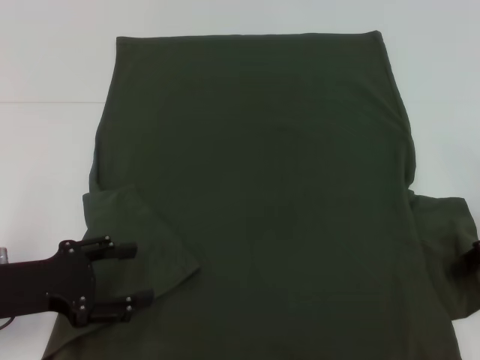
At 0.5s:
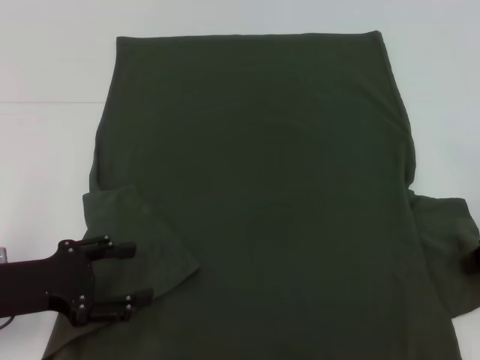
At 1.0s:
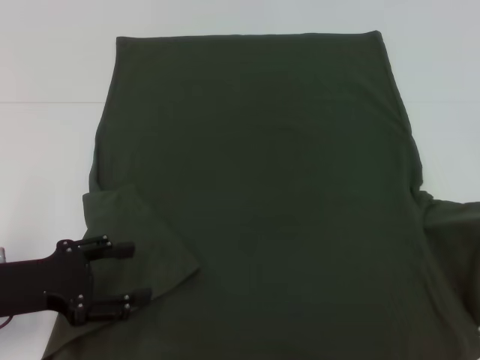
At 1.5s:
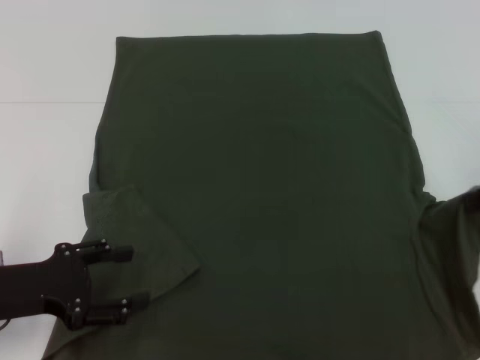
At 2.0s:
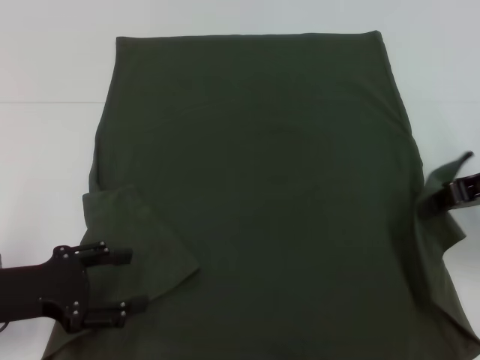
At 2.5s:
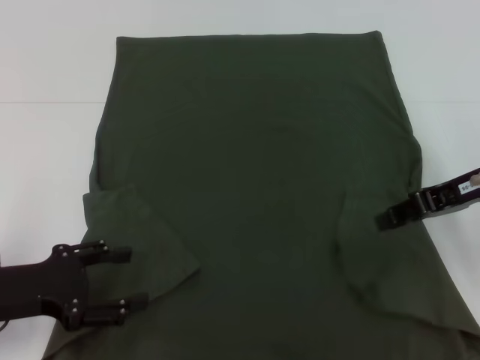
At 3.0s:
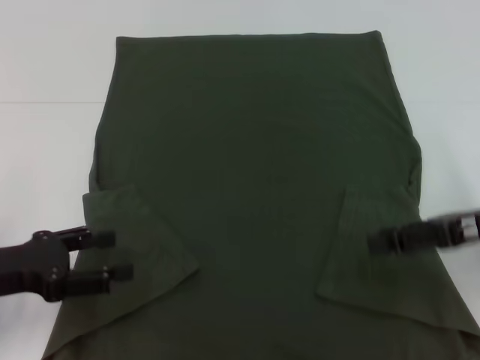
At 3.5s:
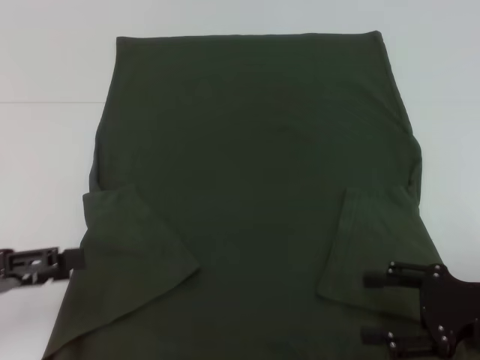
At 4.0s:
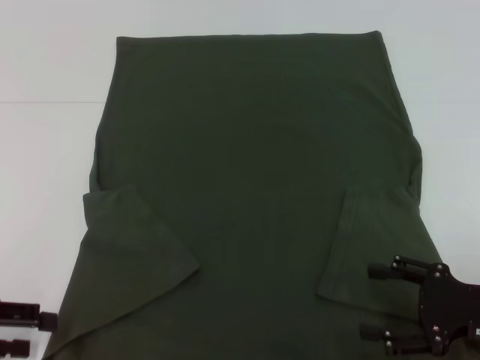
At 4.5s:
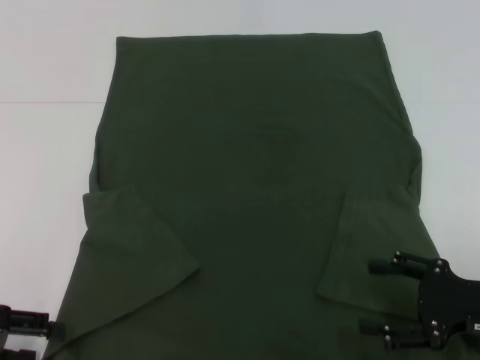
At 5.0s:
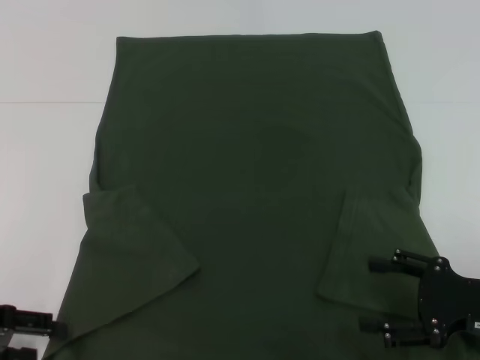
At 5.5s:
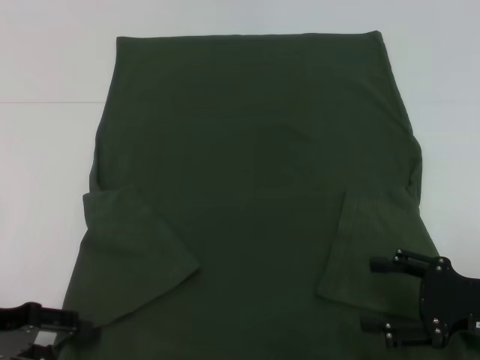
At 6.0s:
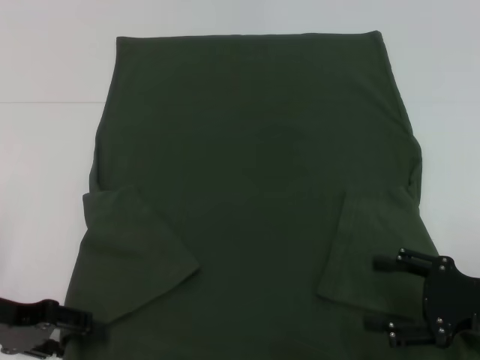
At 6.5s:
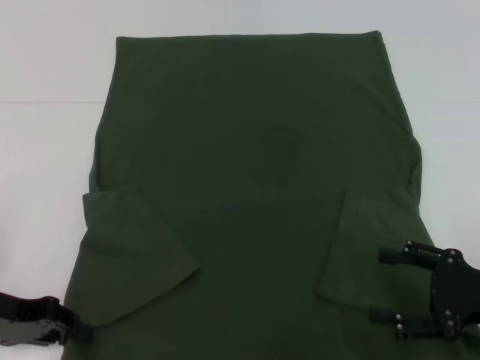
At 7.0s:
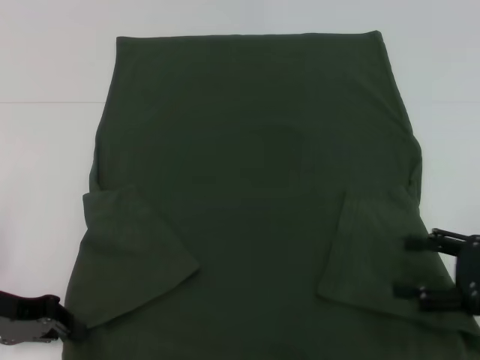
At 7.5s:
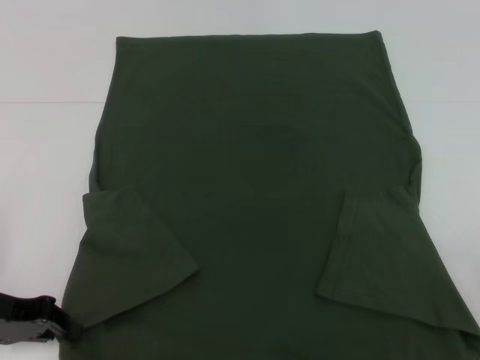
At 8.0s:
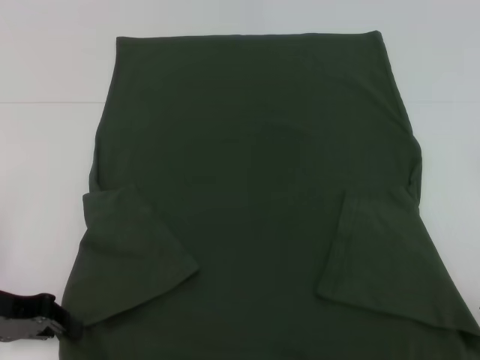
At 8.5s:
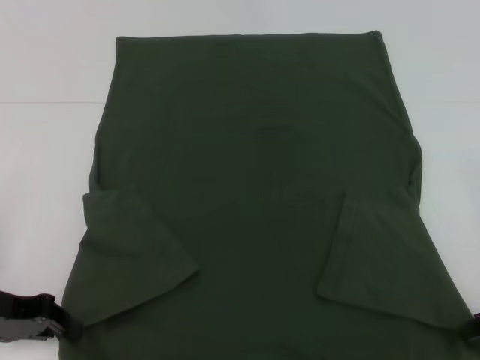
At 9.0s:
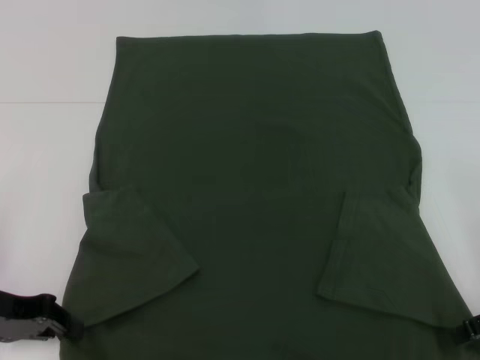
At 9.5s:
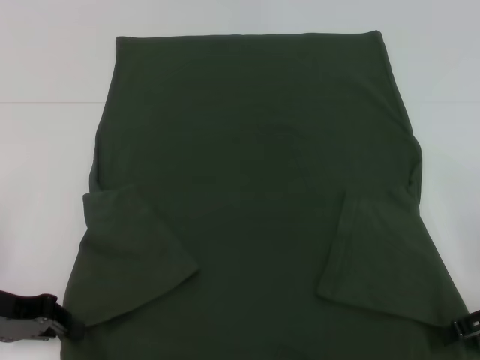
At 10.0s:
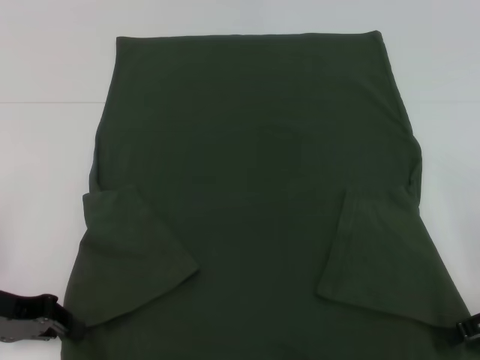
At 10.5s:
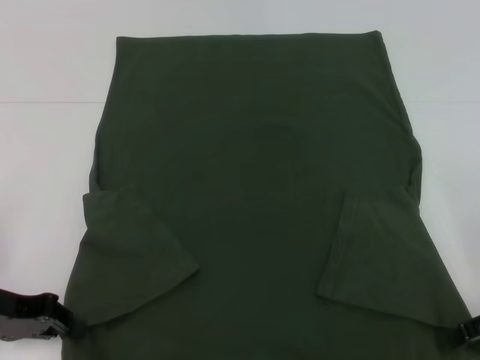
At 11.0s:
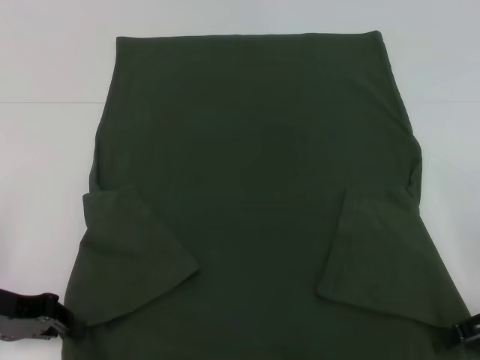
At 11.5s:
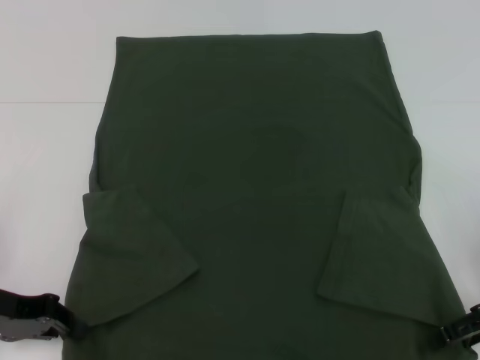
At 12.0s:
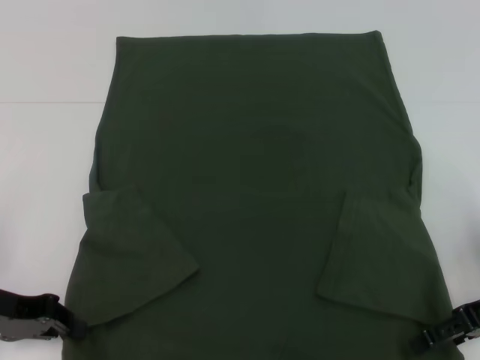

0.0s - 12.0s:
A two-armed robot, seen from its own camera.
Step, 0.0s - 3.0s: Fold the bottom right sleeve with your right hand.
Step, 3.5s - 7.0s: Grab the bottom left corner with your left hand.
0.0s - 2.0s: The right gripper heads upward, covering roughly 5 cm, and closes up.
2.0s - 4.0s: The right gripper heads downward and backward, covering approximately 15 cm, and opens its fingers. The left gripper is displaced to the left by roughly 5 cm.
4.0s - 6.0s: The left gripper changes place by some 5 cm.
6.0s - 8.0s: The left gripper closes up. Meanwhile the right gripper shifts roughly 10 cm upward and to the right.
10.0s - 12.0s: The grippers make only small movements.

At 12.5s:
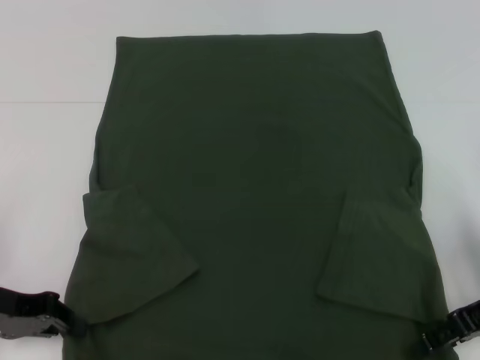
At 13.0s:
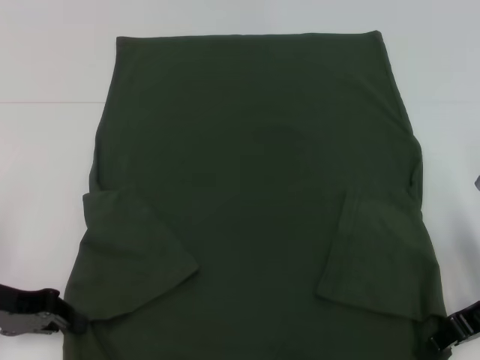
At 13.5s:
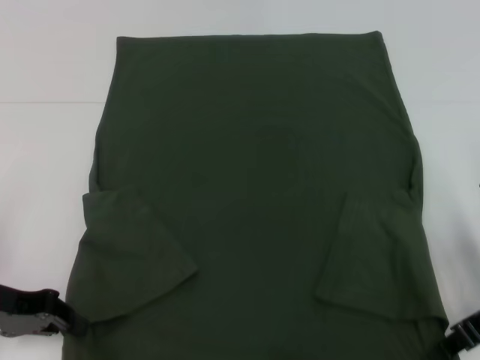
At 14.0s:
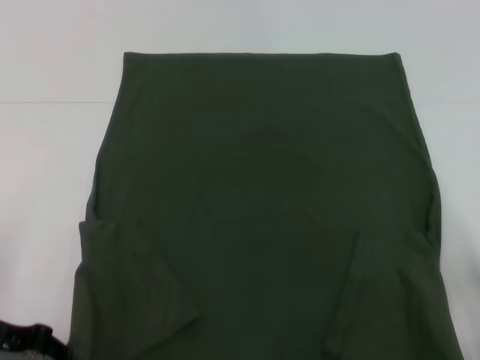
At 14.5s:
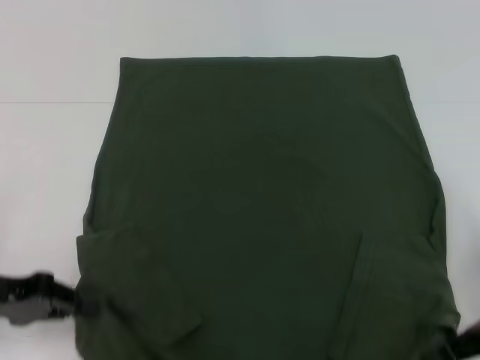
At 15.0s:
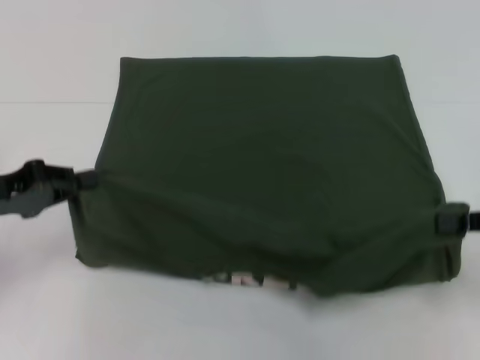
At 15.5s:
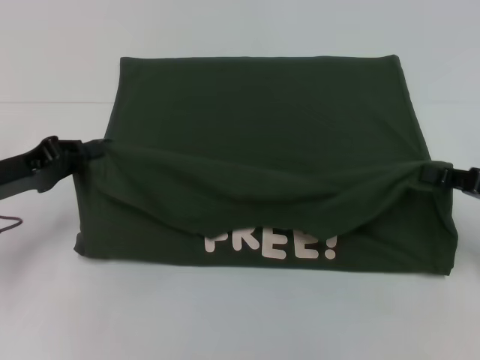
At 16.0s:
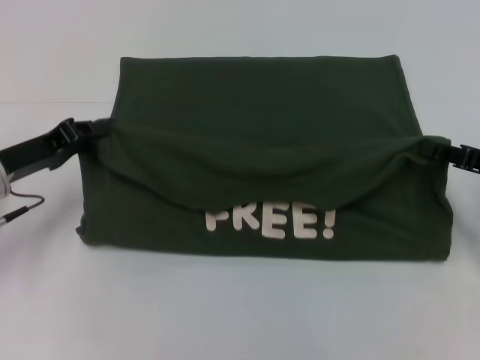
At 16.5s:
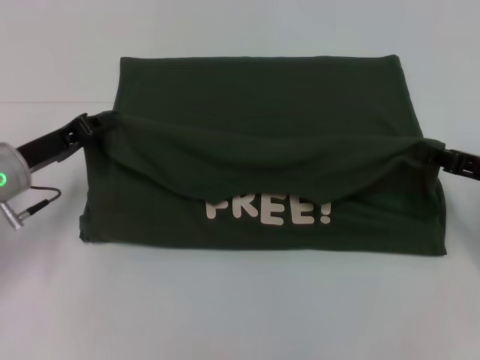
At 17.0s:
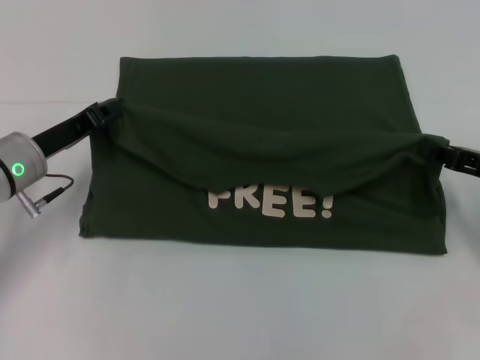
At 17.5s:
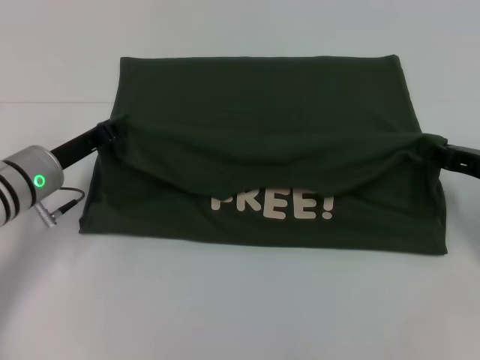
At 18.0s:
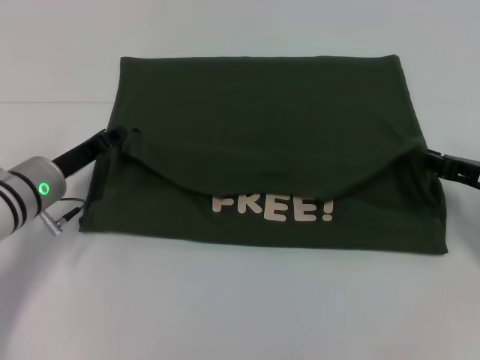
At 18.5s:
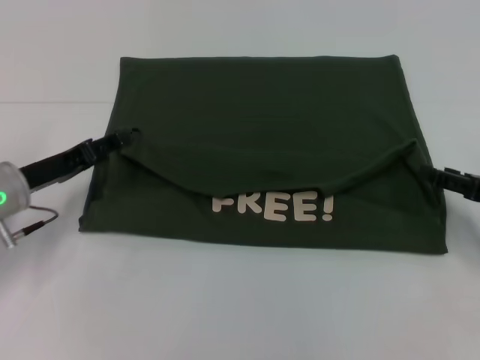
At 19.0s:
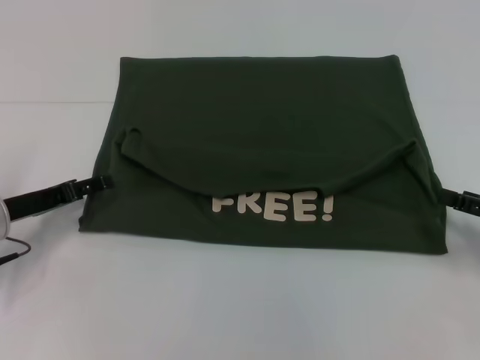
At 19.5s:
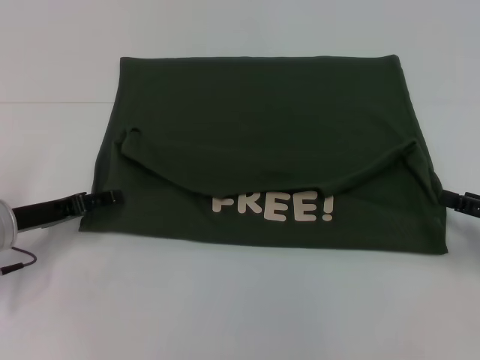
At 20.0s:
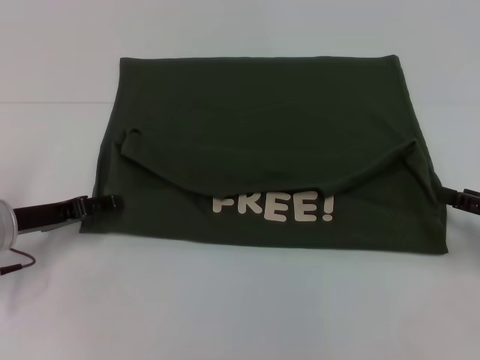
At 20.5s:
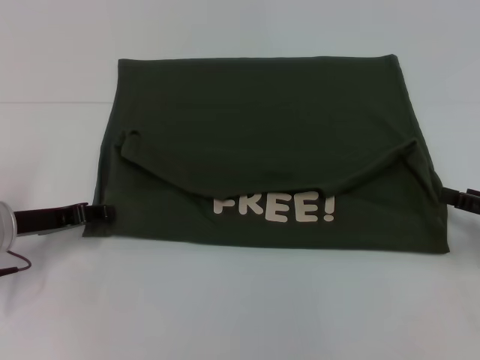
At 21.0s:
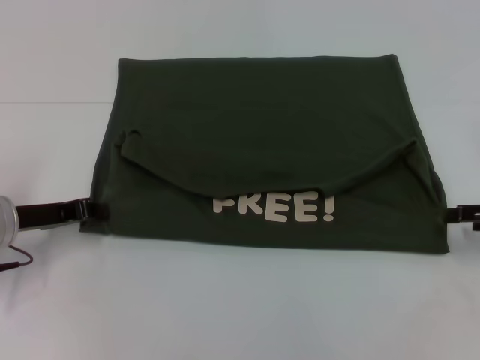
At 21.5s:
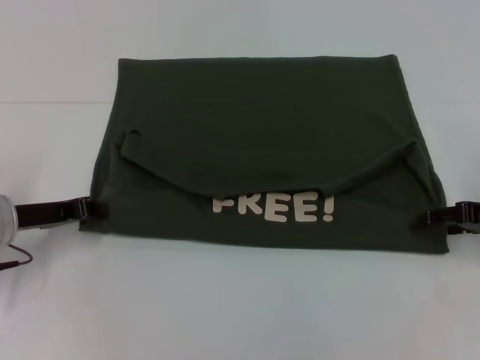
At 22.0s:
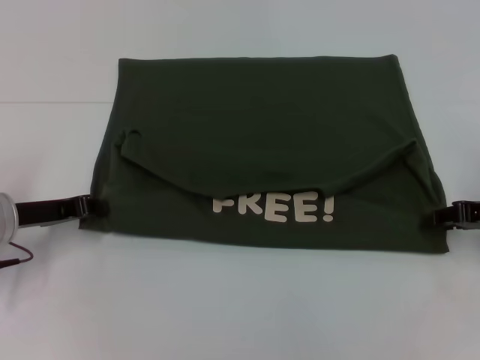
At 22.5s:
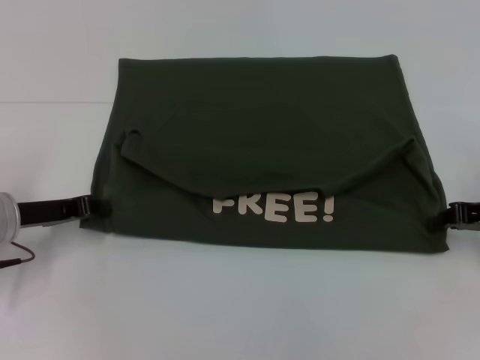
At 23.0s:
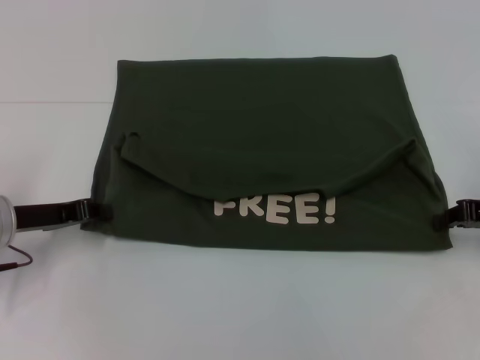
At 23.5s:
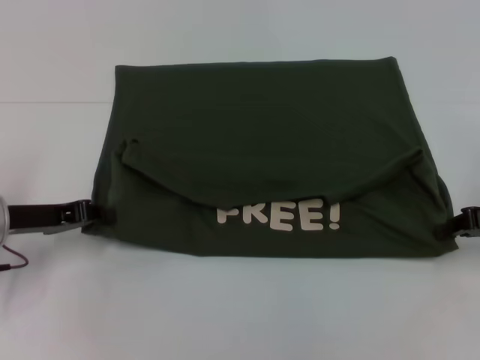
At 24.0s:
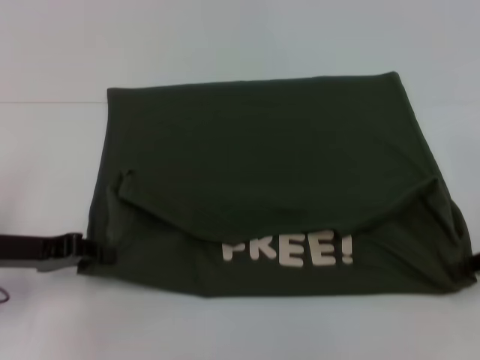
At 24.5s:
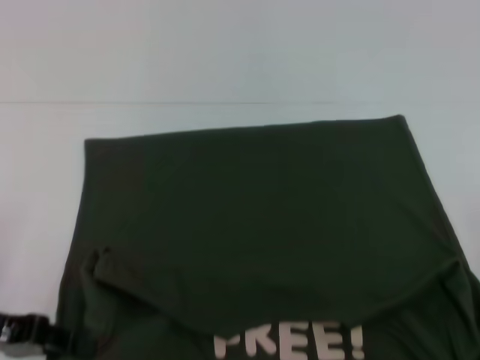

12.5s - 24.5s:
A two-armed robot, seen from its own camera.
Step, 12.5s - 18.5s: Fold the clothes with your left hand.
Step, 12.5s - 18.5s: Fold the clothes with your right hand.
12.5s - 14.5s: The right gripper closes.
14.5s - 16.5s: The right gripper is displaced forward by approximately 5 cm, while the left gripper travels forward and to the right by some 10 cm.
16.5s - 18.5s: The left gripper opens up, while the right gripper opens its fingers.
20.5s - 22.5s: The right gripper is displaced forward by about 5 cm, and closes. The left gripper closes its fingers.
22.5s - 24.5s: The grippers both shift backward by approximately 10 cm.

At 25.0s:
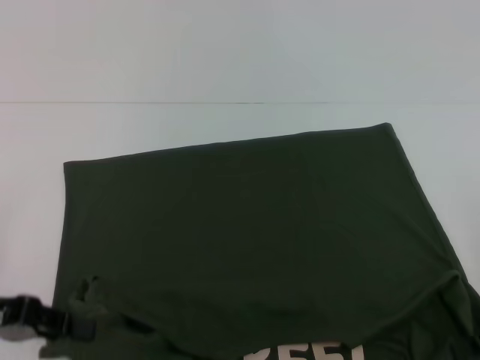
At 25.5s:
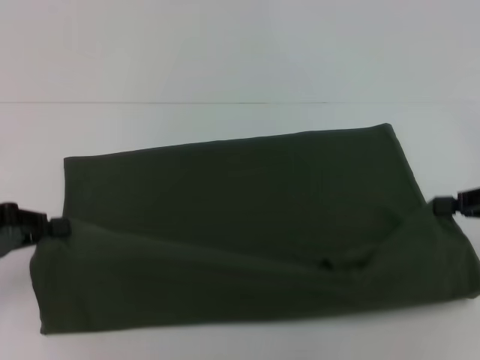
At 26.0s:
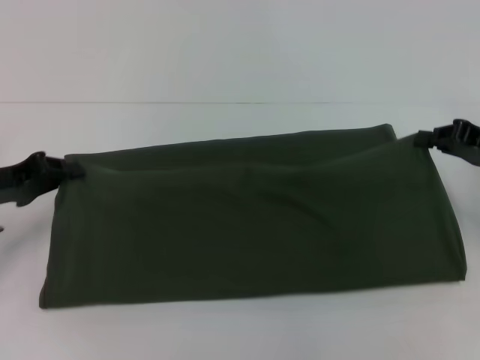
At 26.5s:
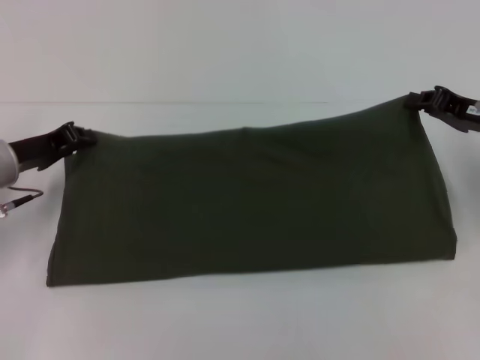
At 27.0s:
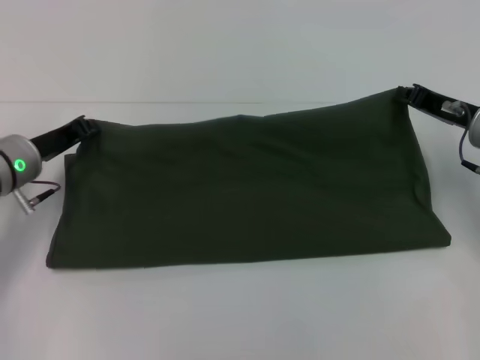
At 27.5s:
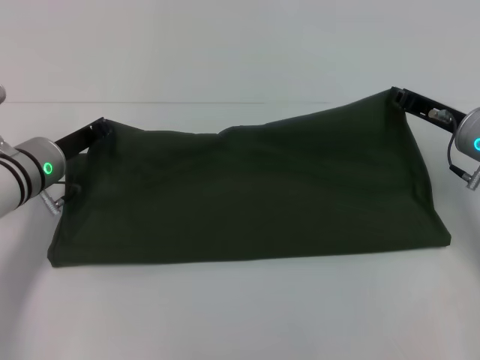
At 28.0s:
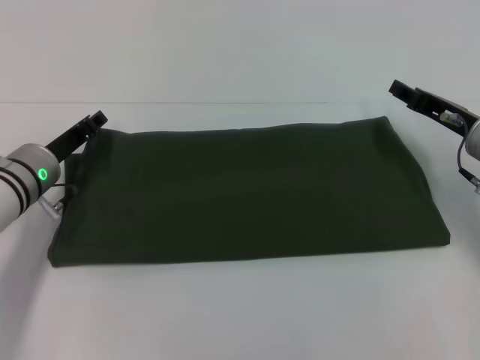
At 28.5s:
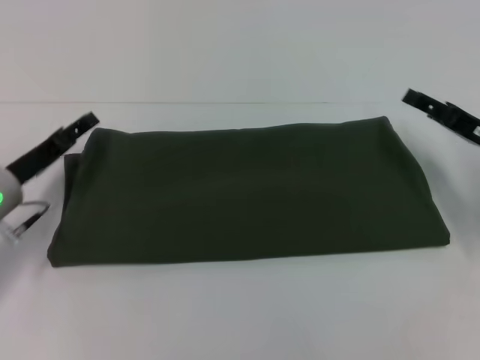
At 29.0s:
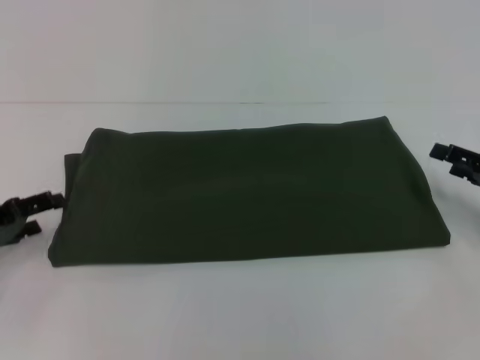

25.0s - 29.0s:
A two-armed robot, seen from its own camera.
Step, 25.5s - 28.0s: Fold the clothes with your right hand.
25.0s - 27.0s: The left gripper heads forward and to the right, covering some 15 cm; the right gripper travels forward and to the left by roughly 15 cm.
27.0s - 29.0s: The left gripper heads backward and to the left, covering roughly 15 cm, and opens its fingers, while the right gripper moves backward and to the right, about 10 cm, and opens up.
